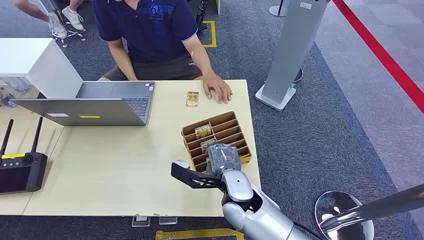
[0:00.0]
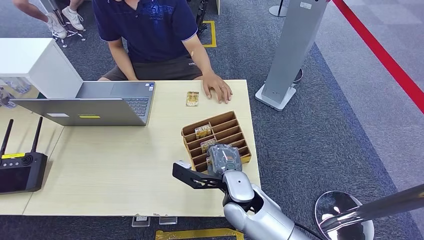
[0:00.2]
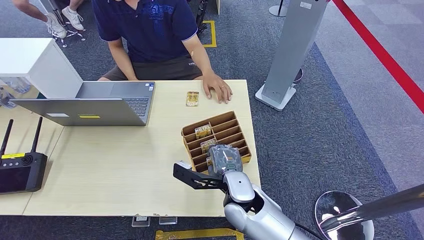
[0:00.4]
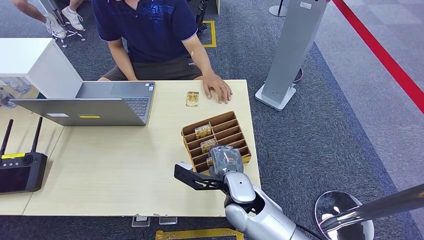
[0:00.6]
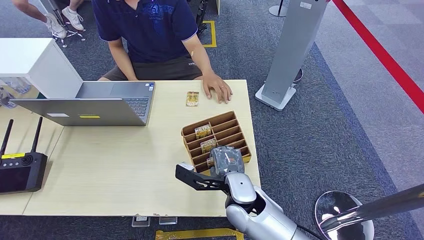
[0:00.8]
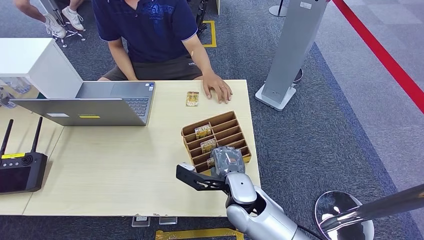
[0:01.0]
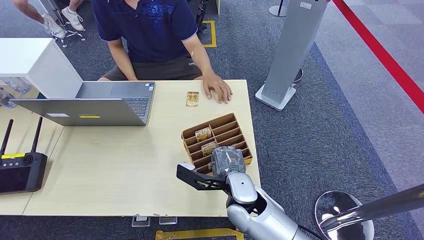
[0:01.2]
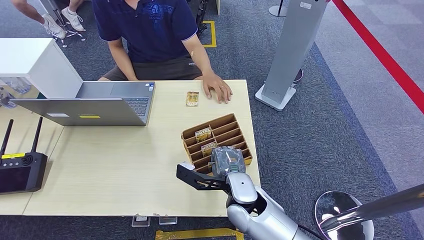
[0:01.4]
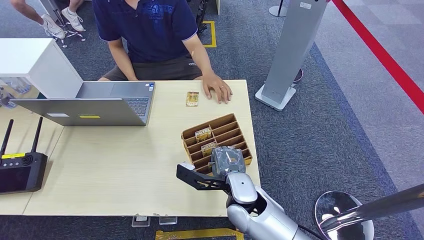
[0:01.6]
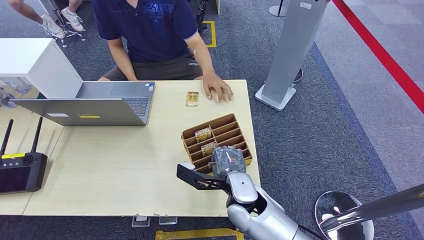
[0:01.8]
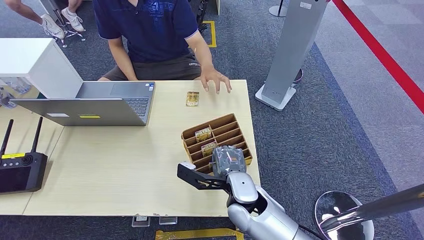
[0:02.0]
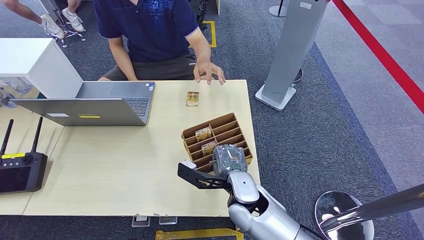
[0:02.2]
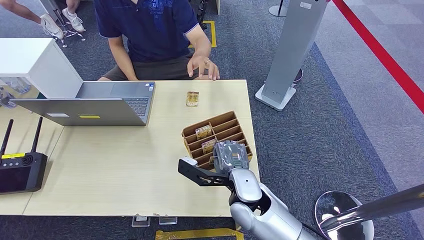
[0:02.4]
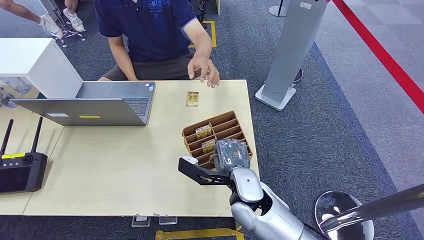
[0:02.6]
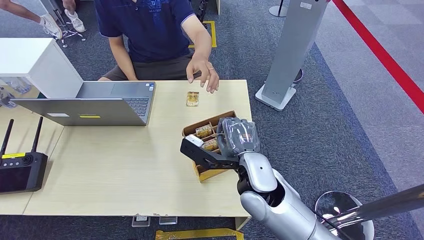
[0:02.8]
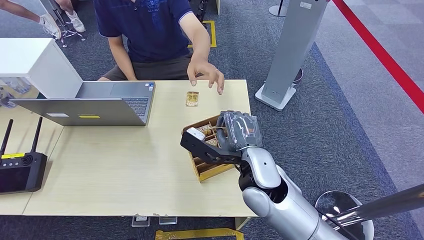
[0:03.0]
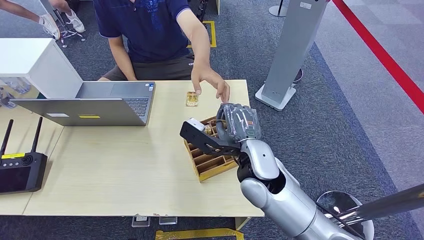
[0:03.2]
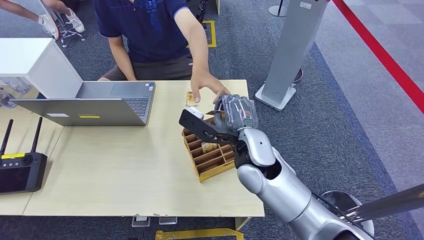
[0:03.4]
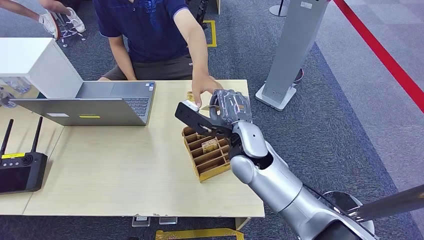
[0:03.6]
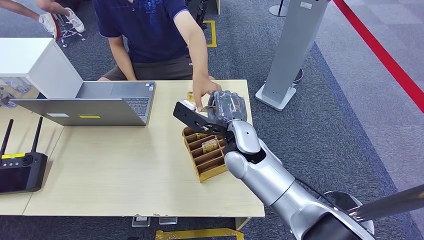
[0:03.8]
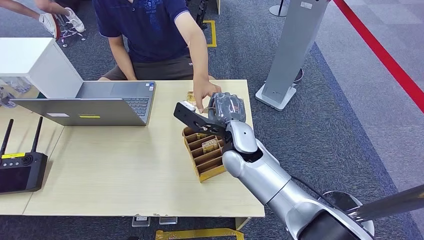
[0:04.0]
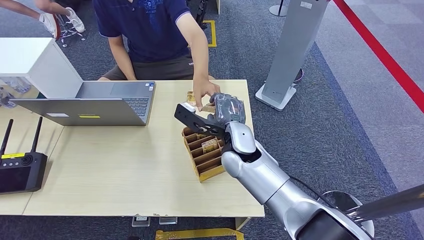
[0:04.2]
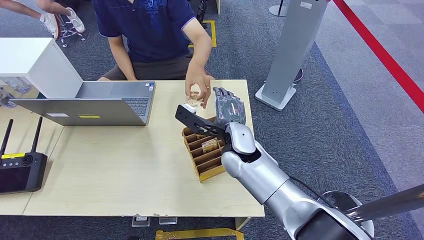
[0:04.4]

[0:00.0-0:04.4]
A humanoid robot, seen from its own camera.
Task of the whole recording: Pick up the card and hand it over to the target person.
Step, 0:00.0 to 0:02.0: Pick up the key card from the card box.
Step, 0:03.4 to 0:04.4: Hand the key card to the target.
0:01.4 to 0:03.0: The right hand heads upward and forward, covering some 10 cm.
0:03.0 to 0:04.4: The right hand moves about 5 cm.
